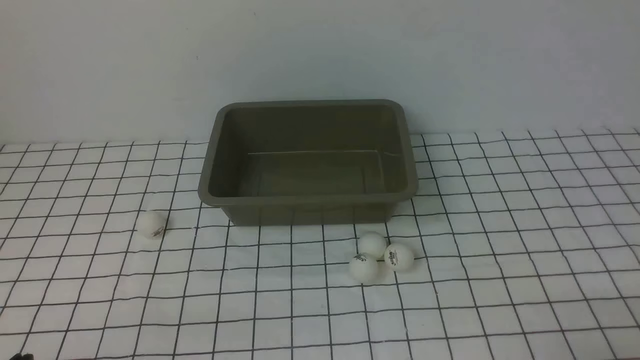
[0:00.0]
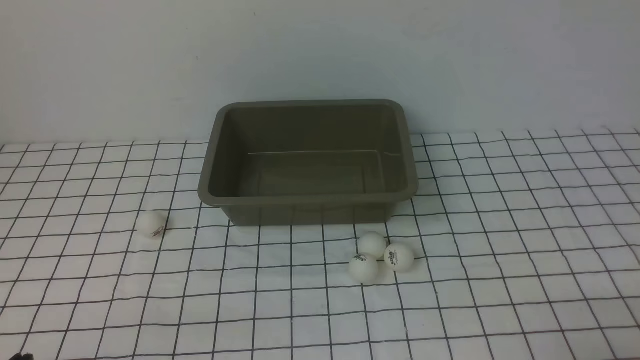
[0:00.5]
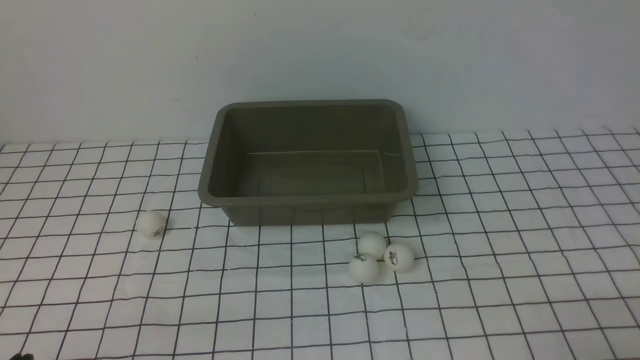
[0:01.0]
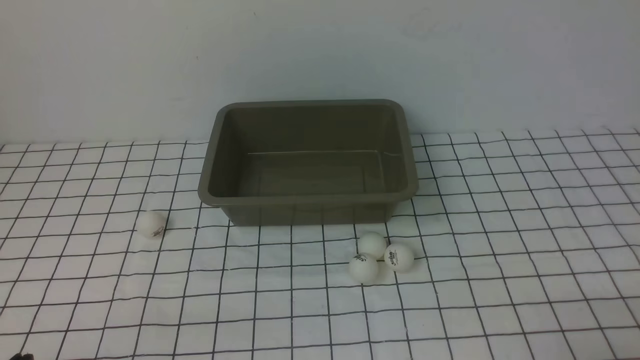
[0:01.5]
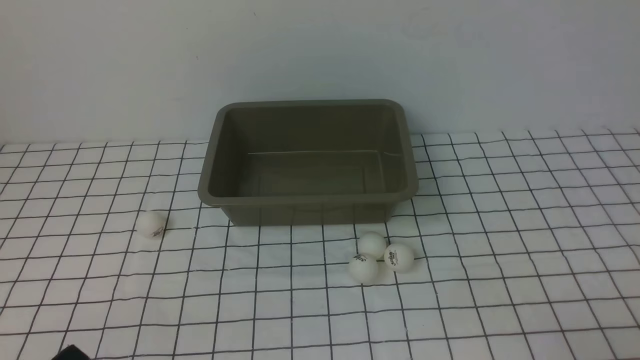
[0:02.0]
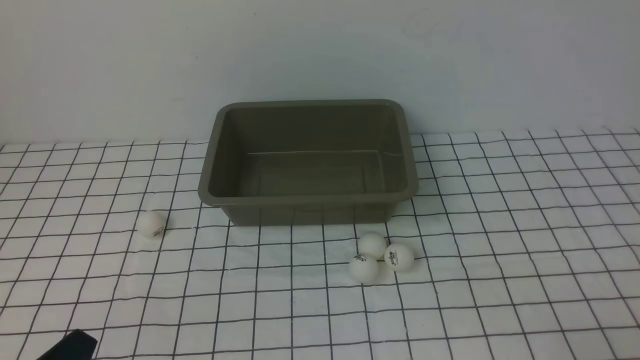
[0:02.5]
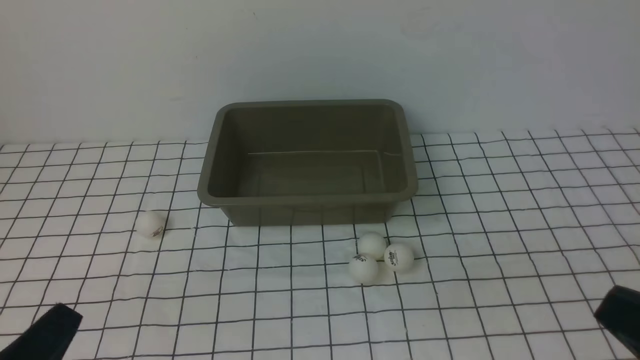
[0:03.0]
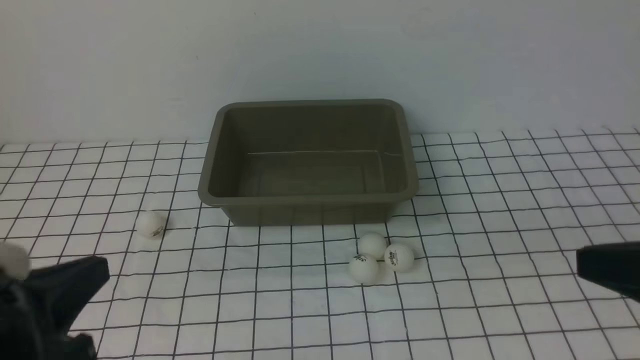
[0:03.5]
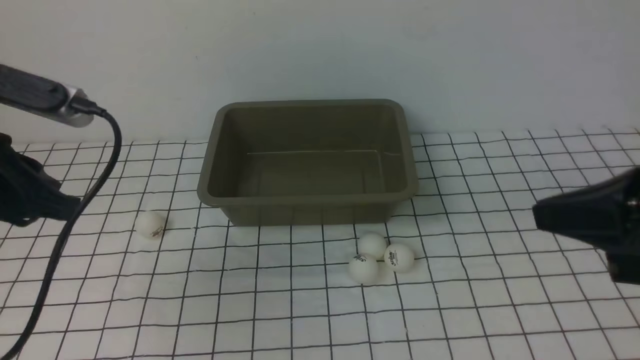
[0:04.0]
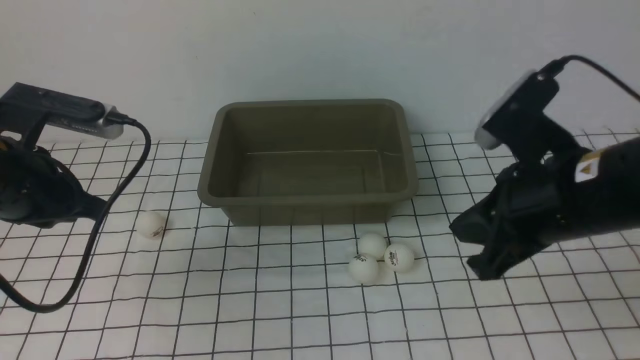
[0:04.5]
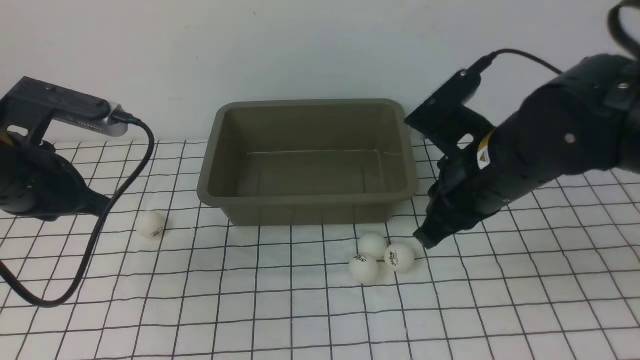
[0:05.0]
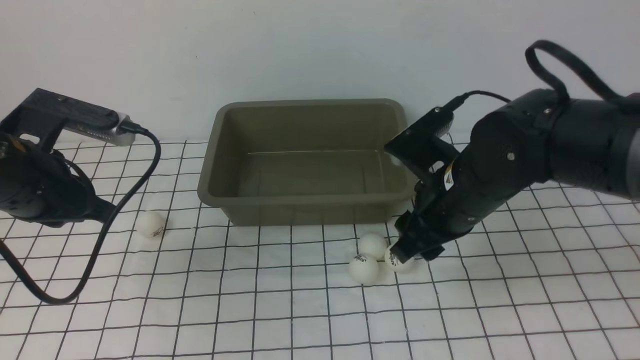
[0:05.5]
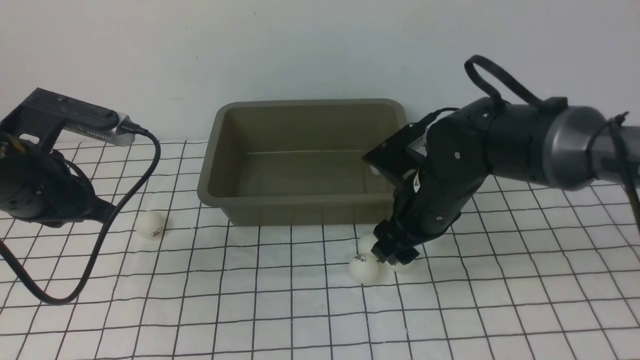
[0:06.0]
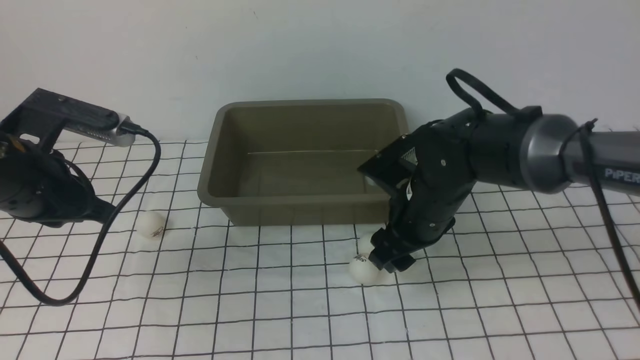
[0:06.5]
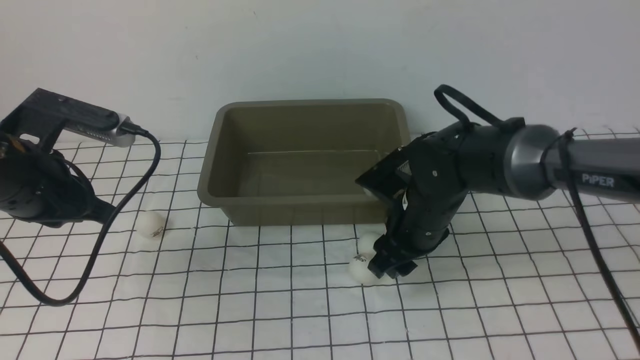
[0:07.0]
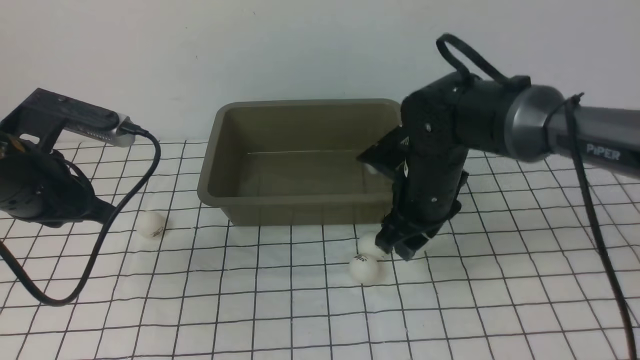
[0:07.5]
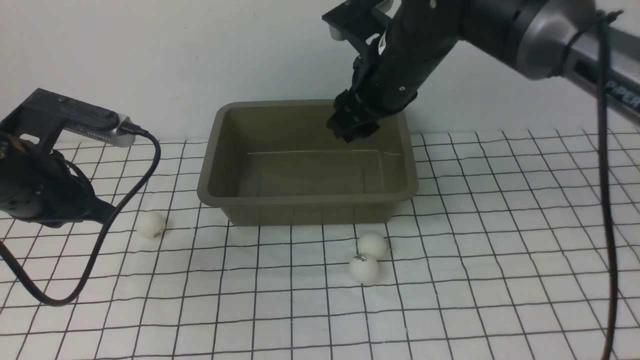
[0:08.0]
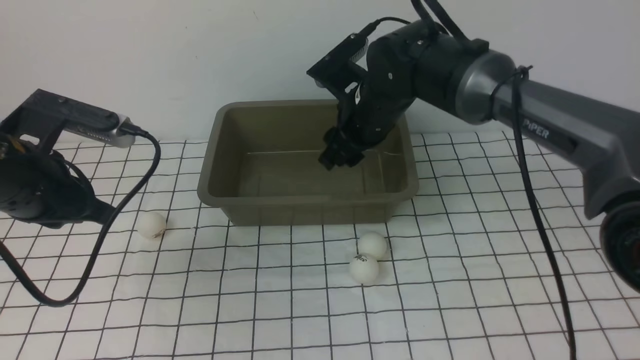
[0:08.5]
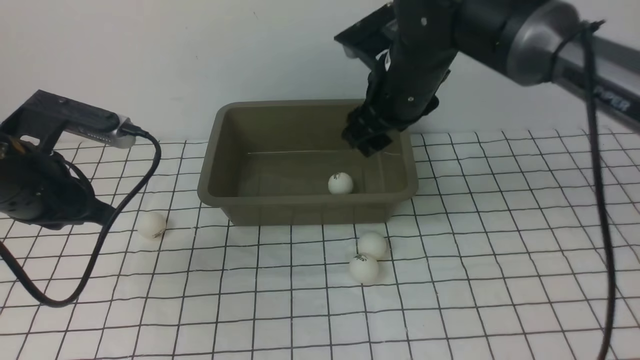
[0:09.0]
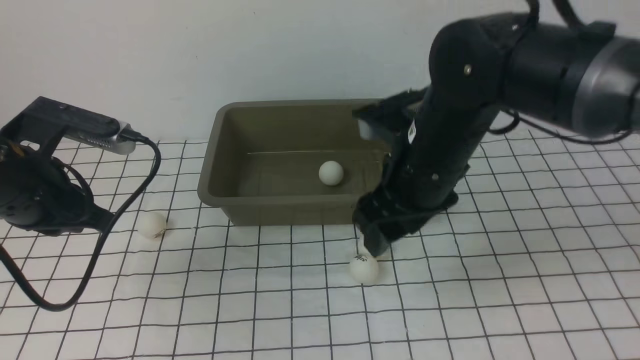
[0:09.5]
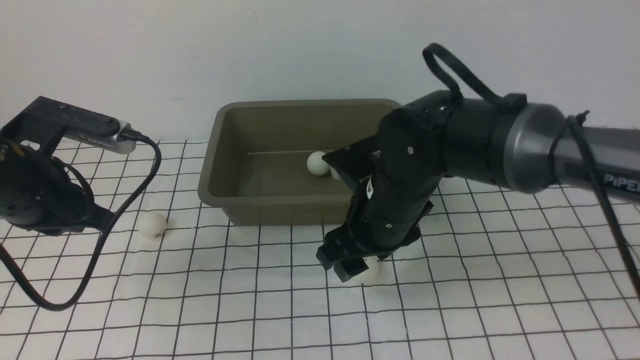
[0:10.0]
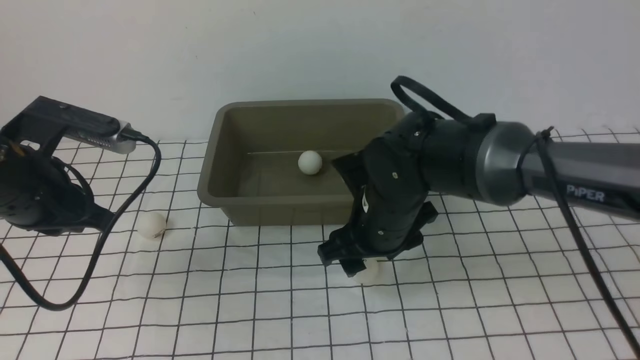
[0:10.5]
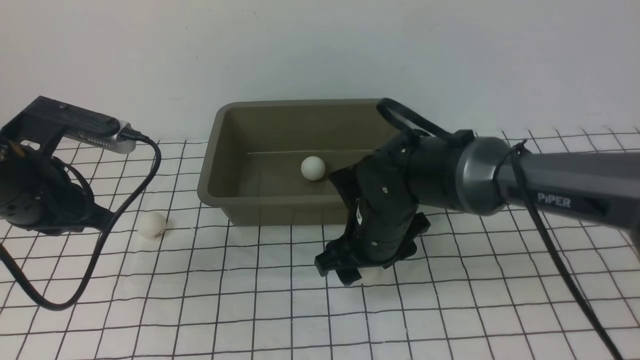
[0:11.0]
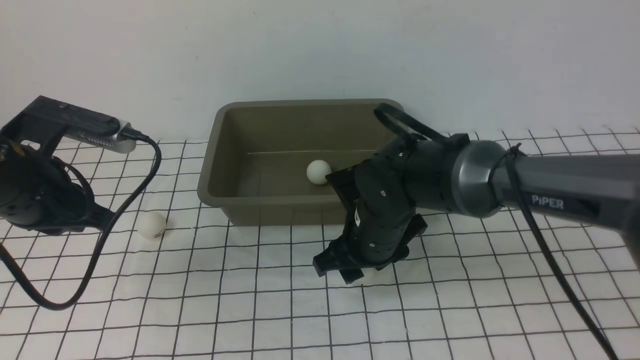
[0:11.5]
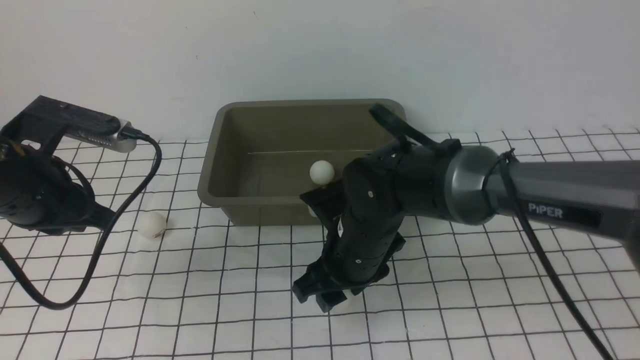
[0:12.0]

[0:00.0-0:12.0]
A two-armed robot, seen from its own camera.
Step, 0:00.0 to 0:07.0: use the right arm to clamp the table tennis ball closest to it.
Step, 0:08.0 to 0:08.5: use the right arm to put the table tennis ball into the box.
0:02.0 to 0:04.0: The right gripper travels upward, forward and to the left by some 20 cm, while the left gripper shifts about 25 cm forward and upward.
0:04.0 to 0:06.0: The right gripper travels downward, forward and to the left by about 25 cm, and opens its fingers.
0:06.0 to 0:08.0: The right gripper shifts about 10 cm upward and forward.
0:08.0 to 0:10.0: The right gripper is displaced downward and backward by roughly 10 cm.
0:10.0 to 0:12.0: There are only small adjustments of the grippers.

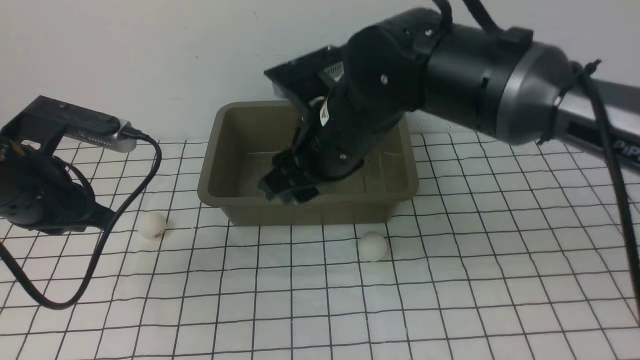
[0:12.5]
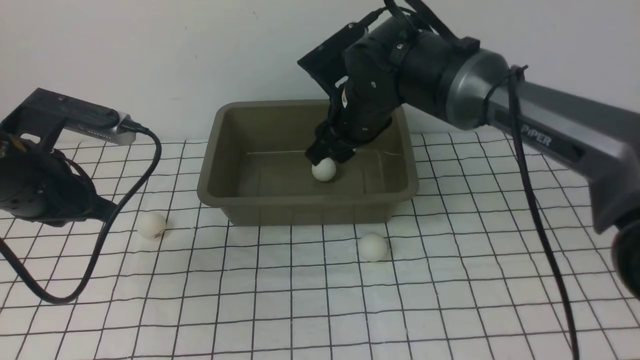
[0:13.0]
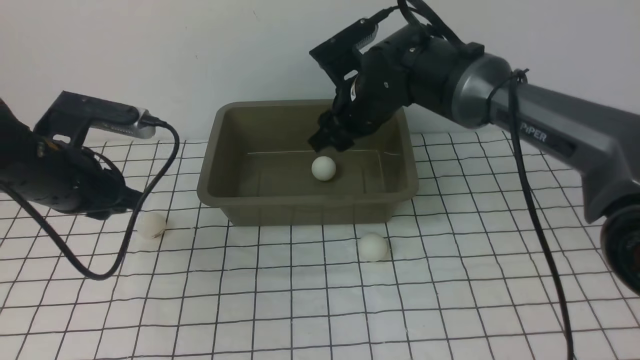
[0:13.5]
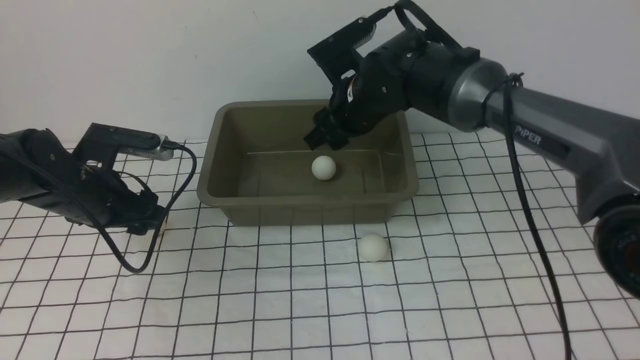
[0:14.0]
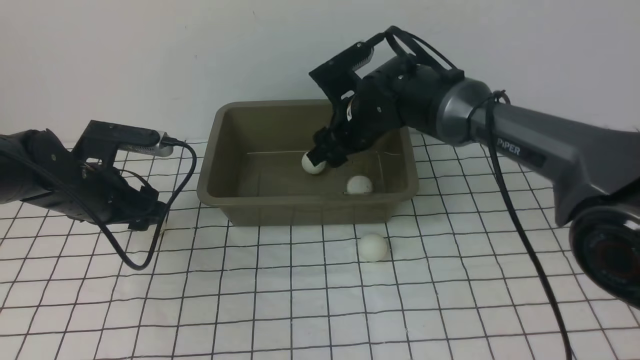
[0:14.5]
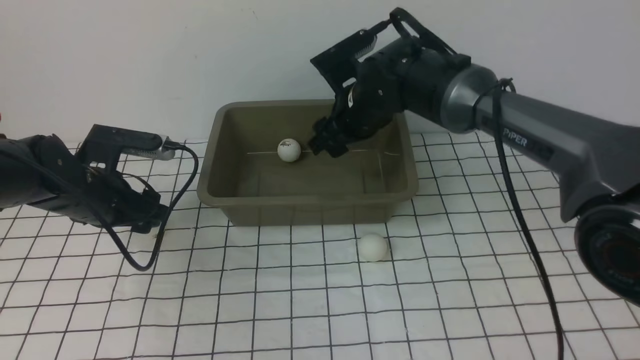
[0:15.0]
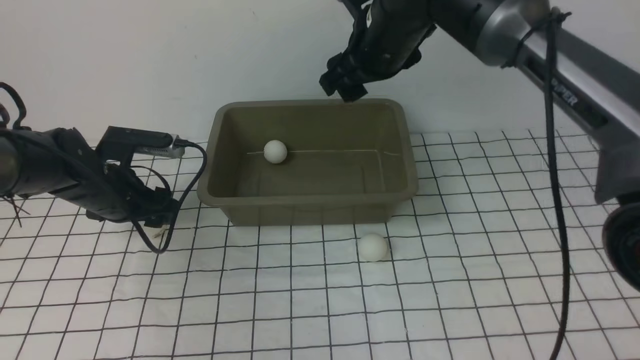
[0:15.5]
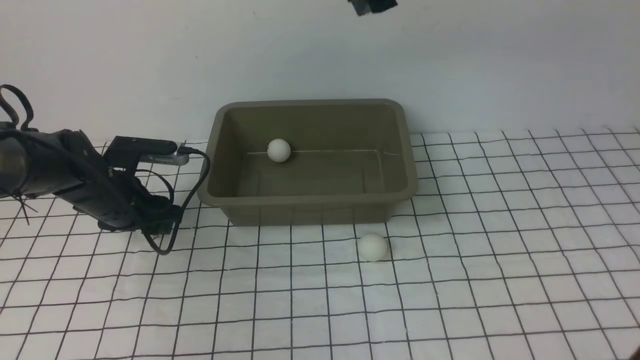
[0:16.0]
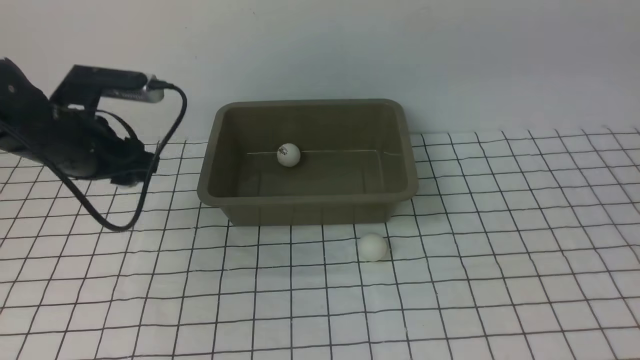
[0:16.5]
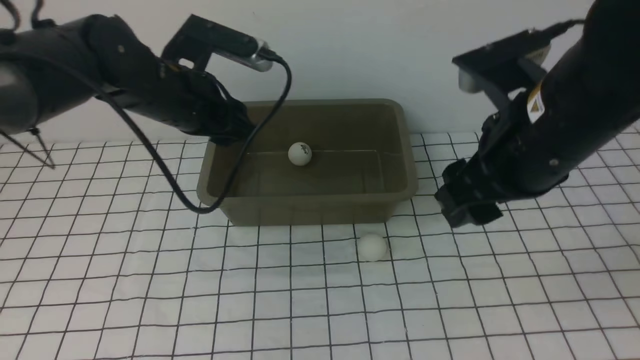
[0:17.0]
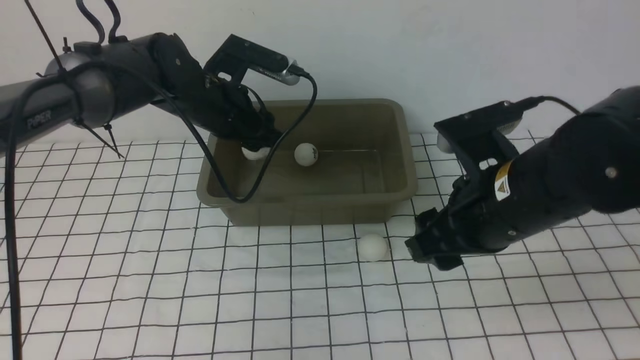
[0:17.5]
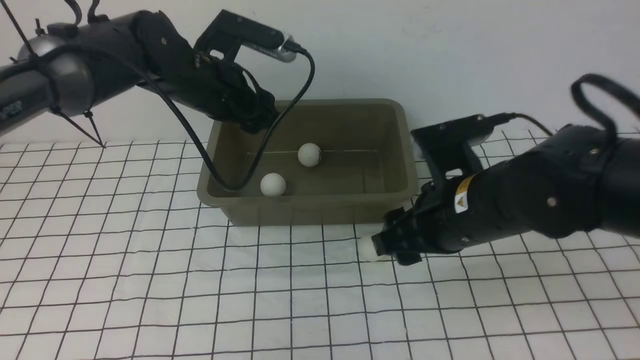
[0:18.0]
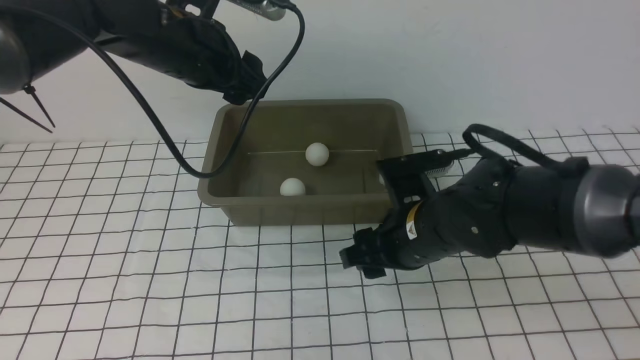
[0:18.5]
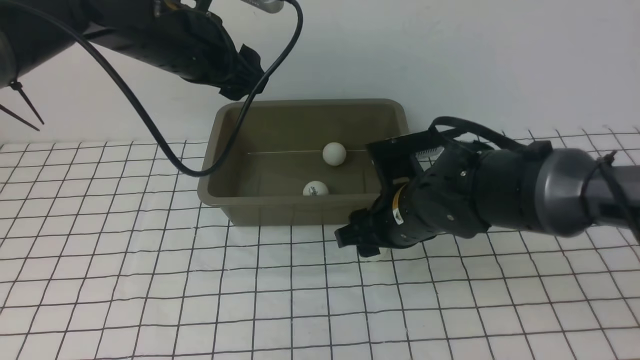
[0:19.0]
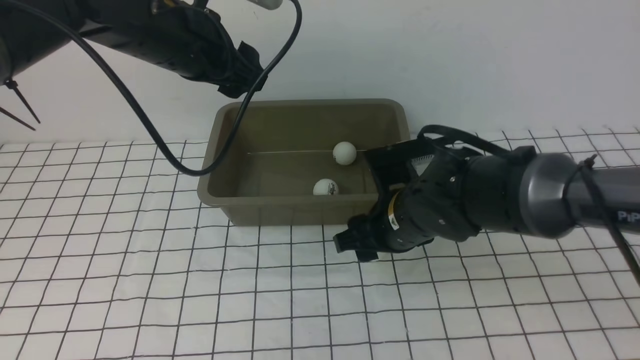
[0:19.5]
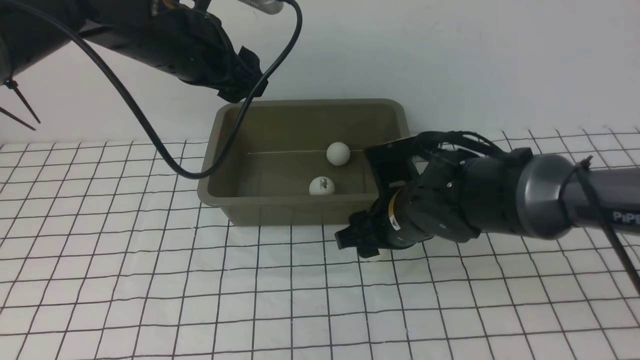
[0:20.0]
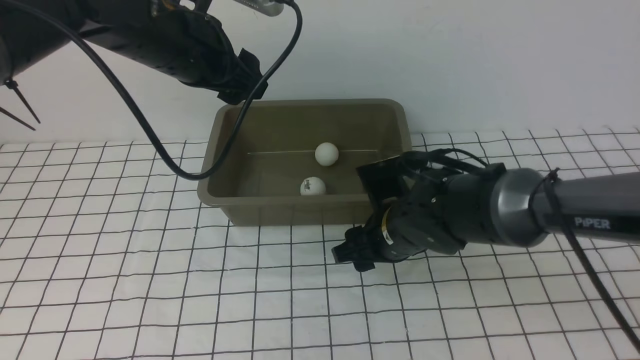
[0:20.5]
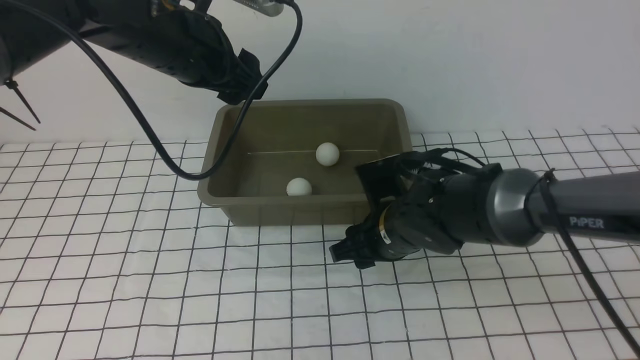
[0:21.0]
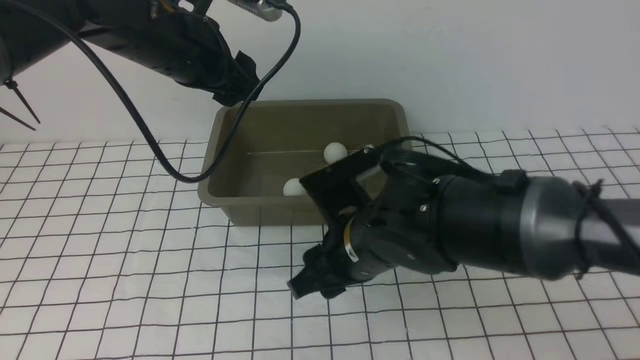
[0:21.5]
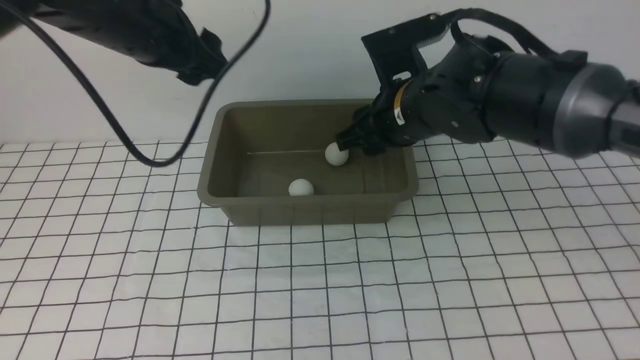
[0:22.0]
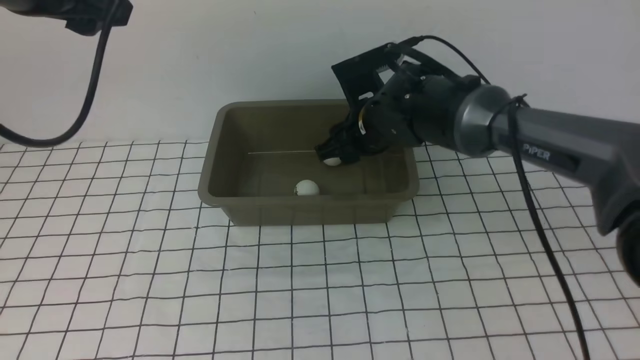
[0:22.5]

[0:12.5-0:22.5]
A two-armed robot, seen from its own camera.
Step, 0:12.5 to 0:14.5: use the right arm to put the table tennis ball into the box.
Step, 0:15.0 to 0:16.0: use the left arm to clamp the table tennis ball closest to it.
Step, 0:17.0 to 0:17.5: use the left arm to put the table tennis ball into the box.
Step, 0:18.0 to 0:21.5: use the right arm to clamp the table tennis ball closest to it.
0:12.5 to 0:14.5: The left gripper is displaced downward and forward by about 10 cm, and opens up, while the right gripper shifts approximately 15 cm forward and downward.
0:14.5 to 0:16.5: The right gripper moves upward and backward, roughly 30 cm. The left gripper moves upward, some 5 cm.
0:16.5 to 0:18.5: The left gripper is displaced to the right and upward by about 15 cm. Meanwhile the right gripper moves downward, some 25 cm.
0:18.5 to 0:20.5: The right gripper changes place by some 5 cm.
0:20.5 to 0:22.5: The right gripper is displaced forward and upward by some 10 cm; the left gripper moves upward, backward and to the left, approximately 20 cm.
